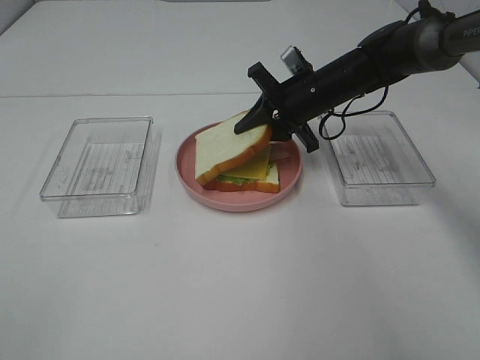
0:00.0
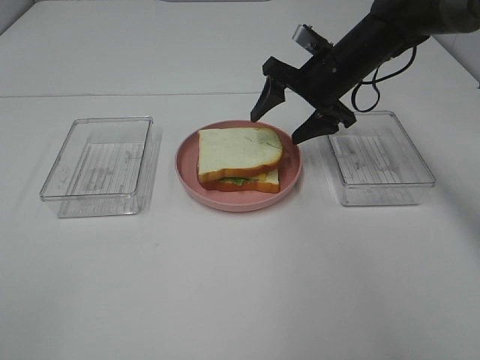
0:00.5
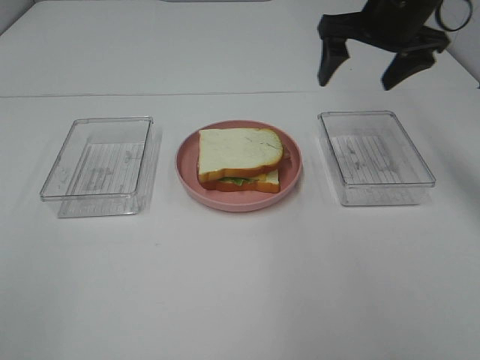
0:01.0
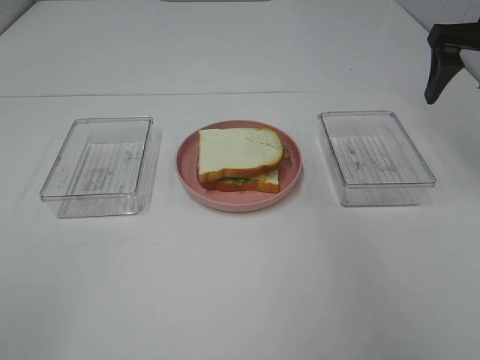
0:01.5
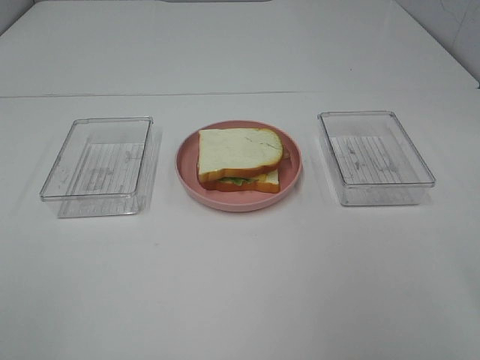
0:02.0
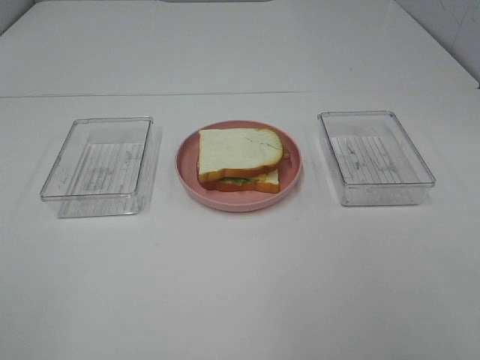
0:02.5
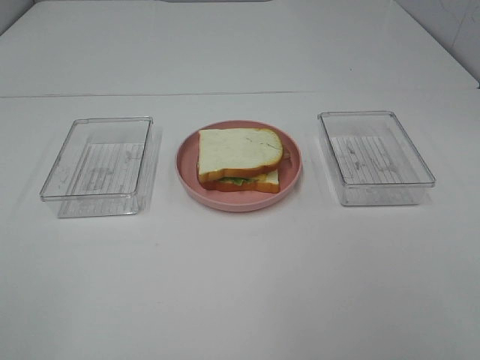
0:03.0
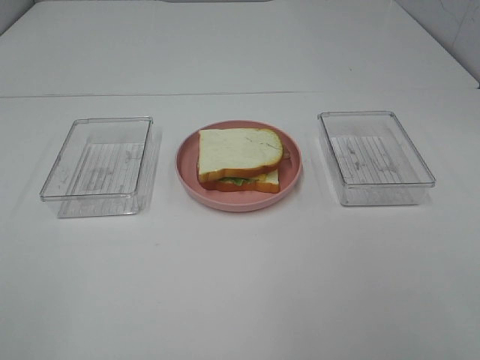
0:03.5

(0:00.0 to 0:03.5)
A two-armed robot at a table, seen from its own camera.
Task of the whole recording: Make sandwiches.
0:00.0 - 0:02.0: The right gripper heads backward, upward and to the right, covering about 40 cm, and opens its fingers.
